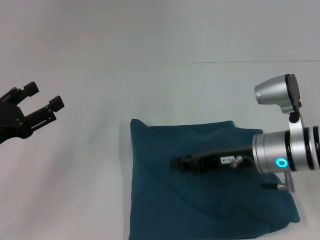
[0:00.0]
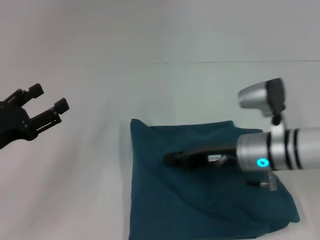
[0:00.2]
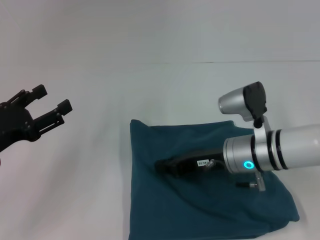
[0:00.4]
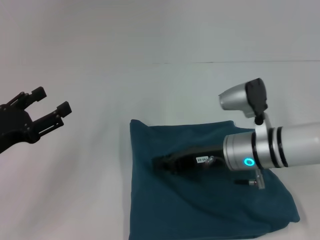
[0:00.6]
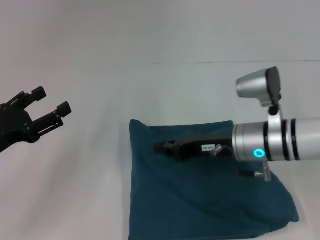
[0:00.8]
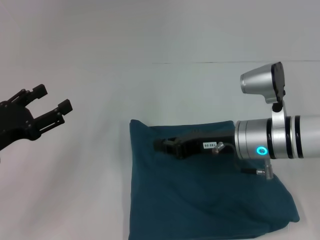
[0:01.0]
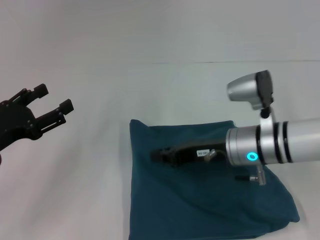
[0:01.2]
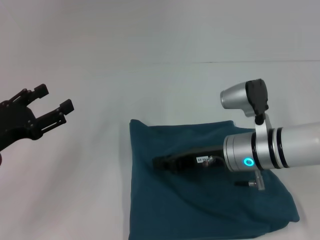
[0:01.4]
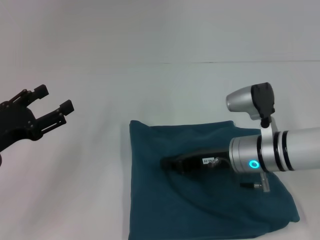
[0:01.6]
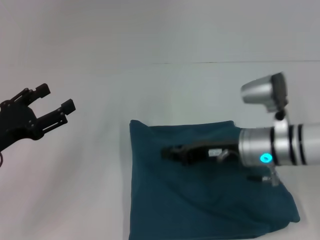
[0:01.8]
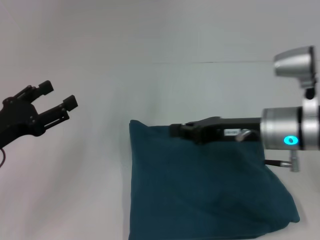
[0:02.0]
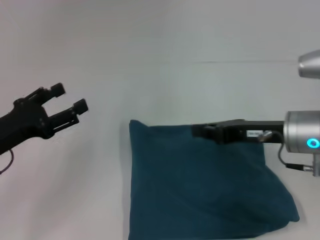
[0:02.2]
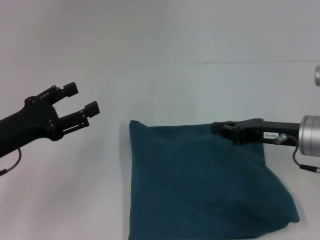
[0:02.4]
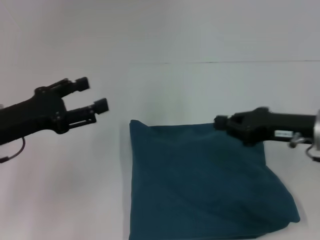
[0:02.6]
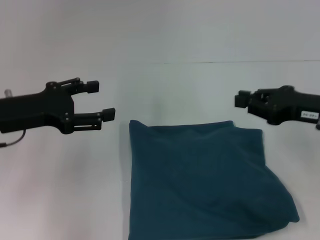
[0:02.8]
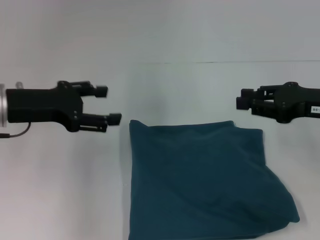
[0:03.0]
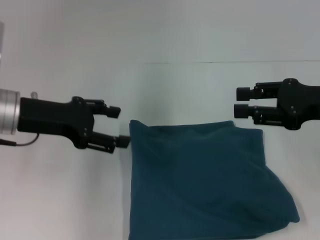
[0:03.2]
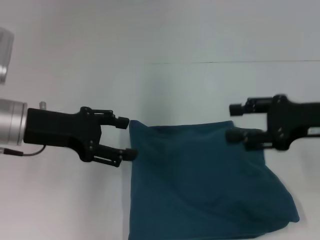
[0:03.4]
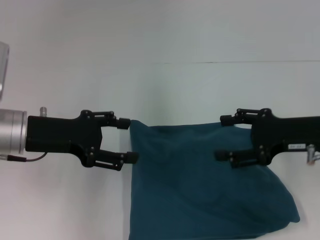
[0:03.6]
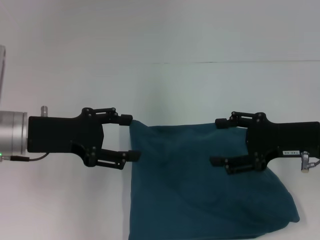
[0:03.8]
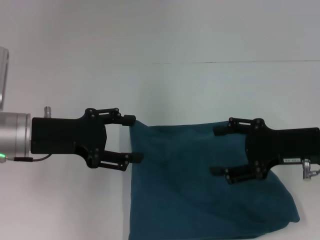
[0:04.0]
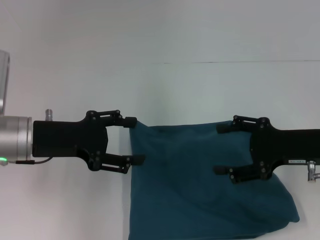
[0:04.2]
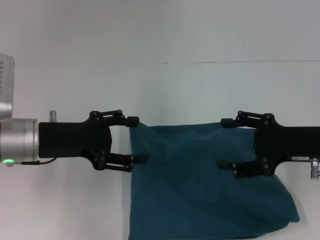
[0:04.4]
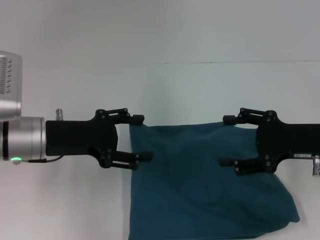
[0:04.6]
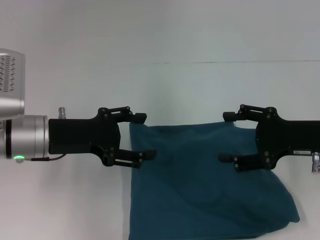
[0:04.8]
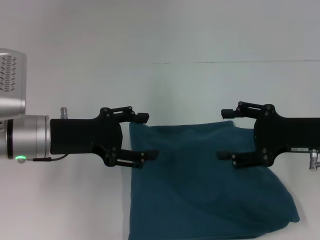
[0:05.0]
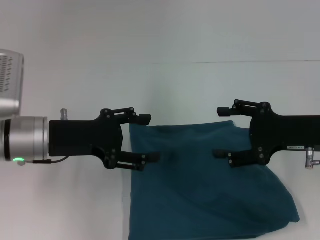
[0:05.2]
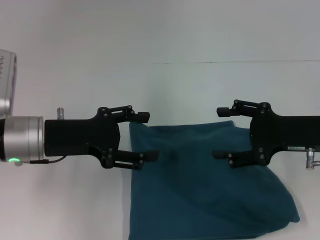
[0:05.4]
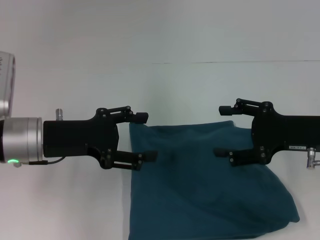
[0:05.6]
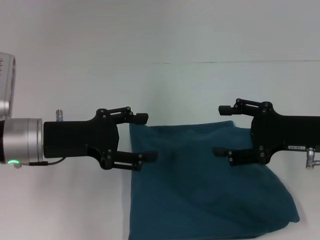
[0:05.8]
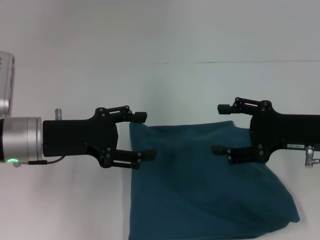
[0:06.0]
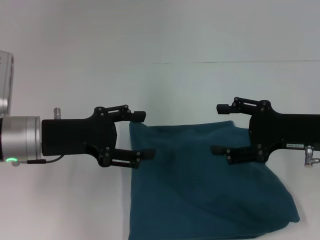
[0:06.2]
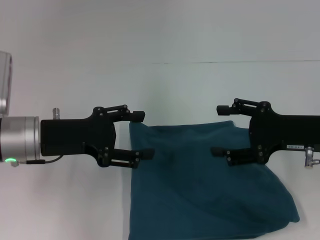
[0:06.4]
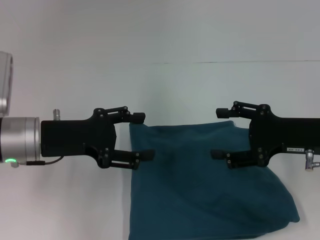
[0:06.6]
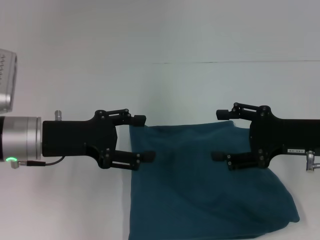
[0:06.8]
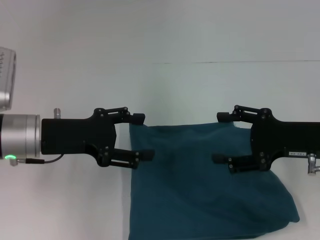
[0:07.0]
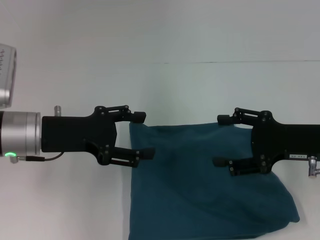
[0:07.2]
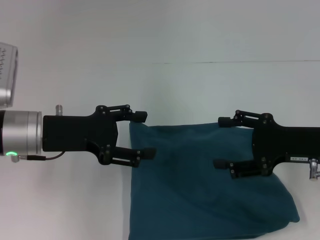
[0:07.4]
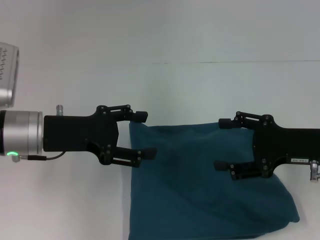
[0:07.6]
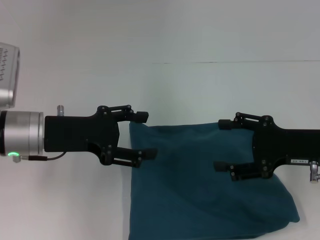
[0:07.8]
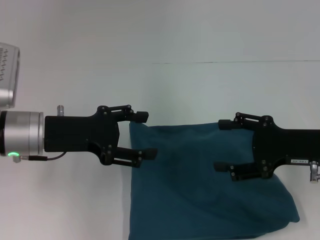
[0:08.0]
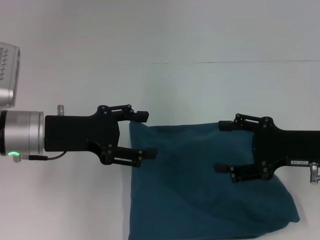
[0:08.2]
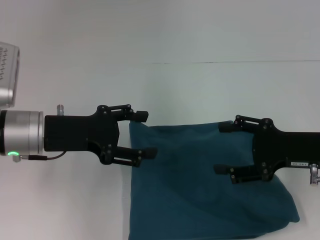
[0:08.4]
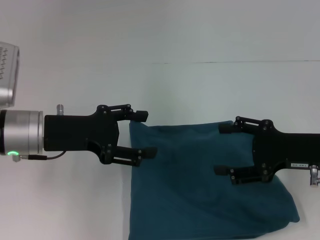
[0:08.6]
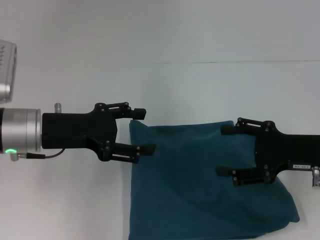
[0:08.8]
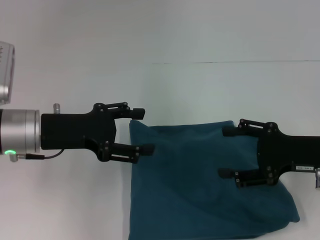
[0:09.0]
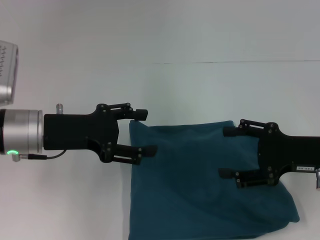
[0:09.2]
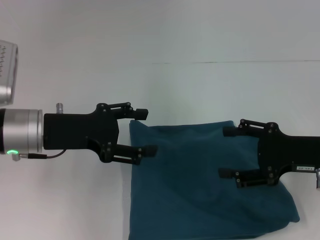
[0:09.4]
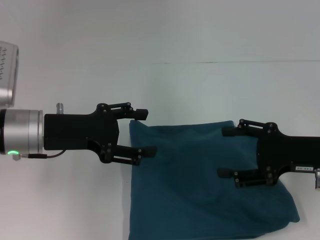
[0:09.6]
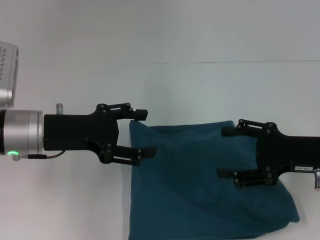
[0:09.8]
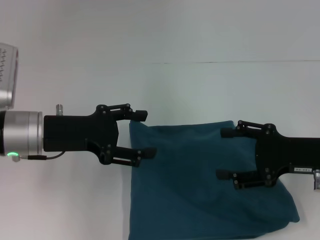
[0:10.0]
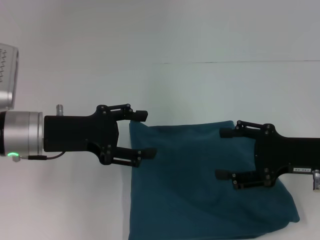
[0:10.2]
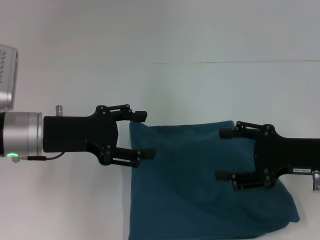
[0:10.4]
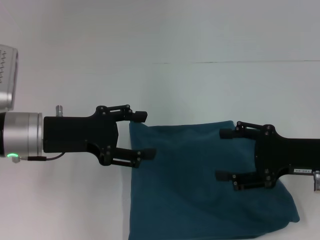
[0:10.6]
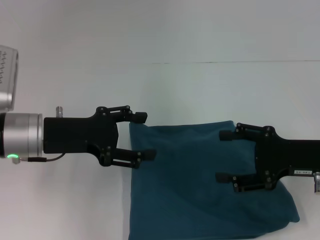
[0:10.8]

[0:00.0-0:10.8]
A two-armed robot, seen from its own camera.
0:00.0 to 0:01.6: The grippers make only small movements.
0:01.6 to 0:03.0: The left gripper shifts about 10 cm upward and forward. Meanwhile the right gripper moves to the right and upward, approximately 15 cm.
0:03.0 to 0:04.6: The left gripper shifts by roughly 5 cm. The right gripper opens.
0:04.6 to 0:07.8: The grippers move only a little.
0:07.8 to 0:10.8: The two grippers keep their place.
